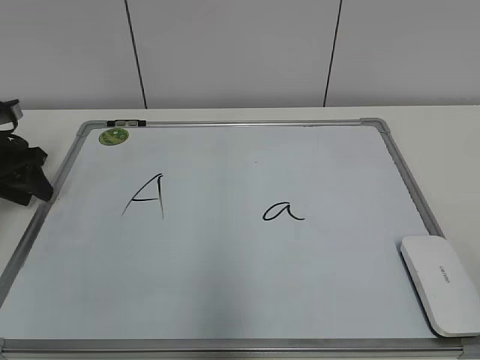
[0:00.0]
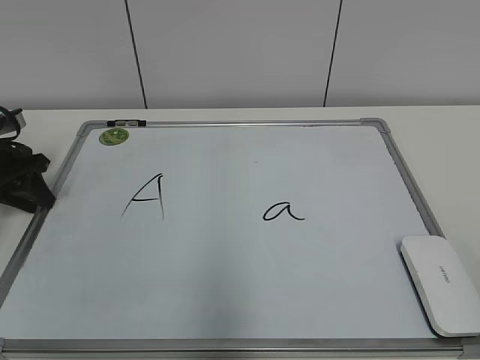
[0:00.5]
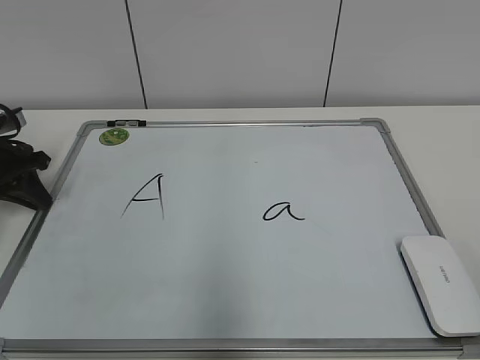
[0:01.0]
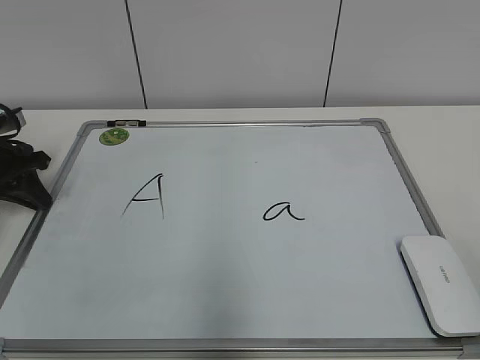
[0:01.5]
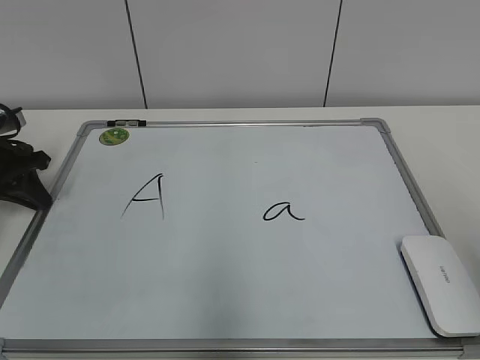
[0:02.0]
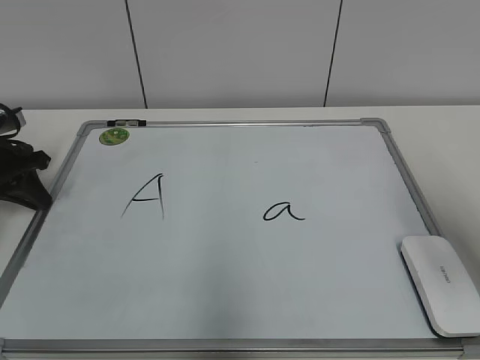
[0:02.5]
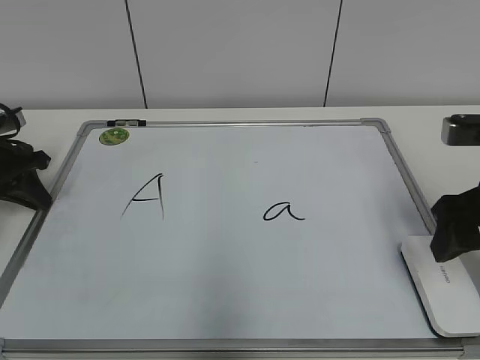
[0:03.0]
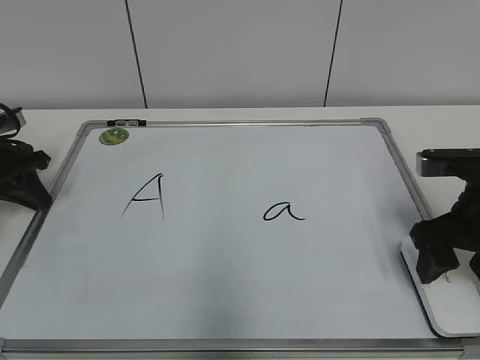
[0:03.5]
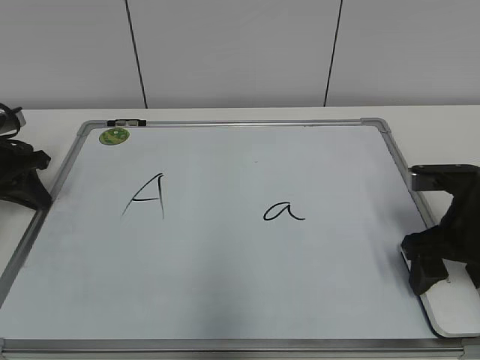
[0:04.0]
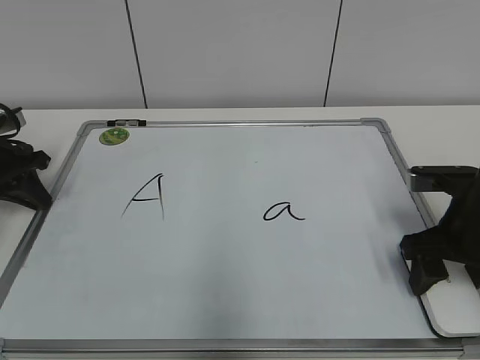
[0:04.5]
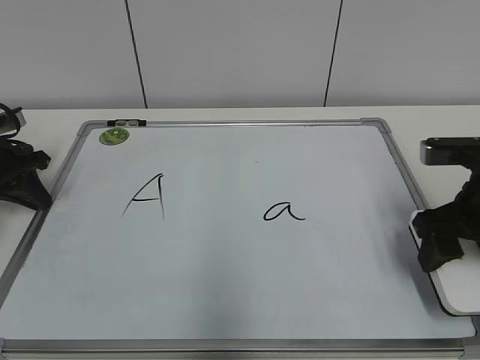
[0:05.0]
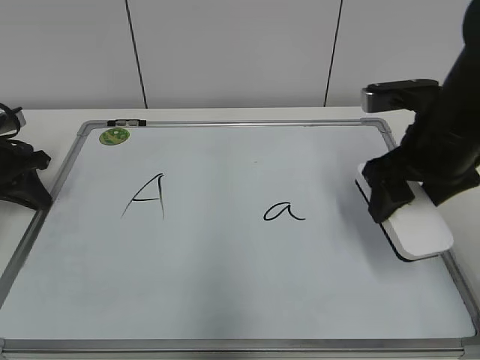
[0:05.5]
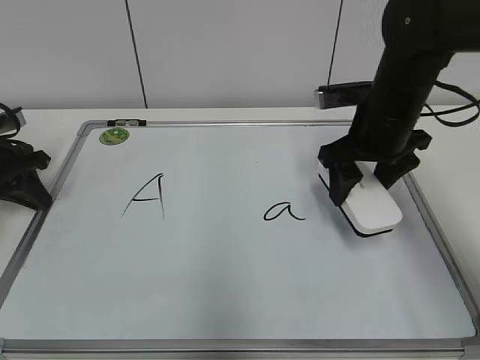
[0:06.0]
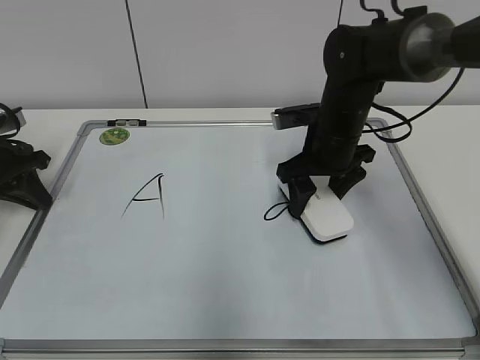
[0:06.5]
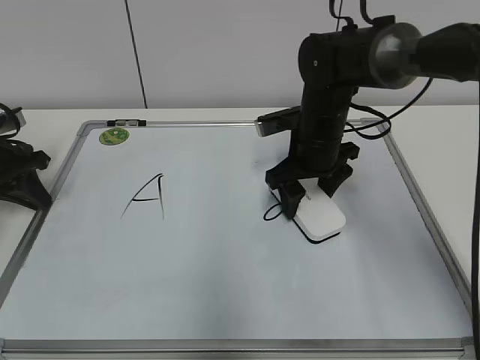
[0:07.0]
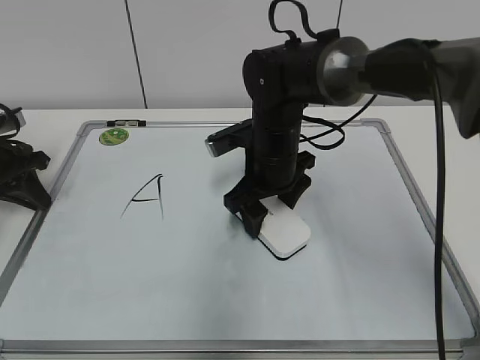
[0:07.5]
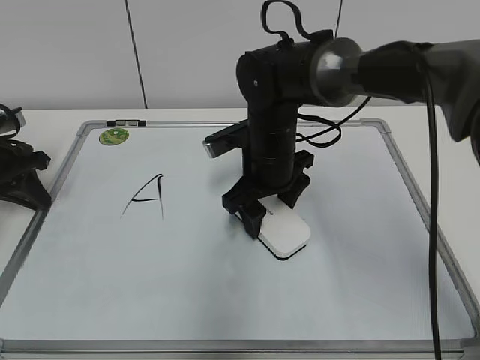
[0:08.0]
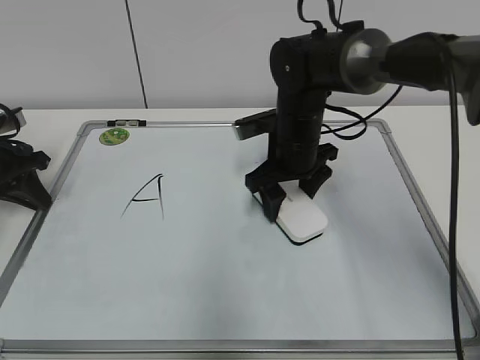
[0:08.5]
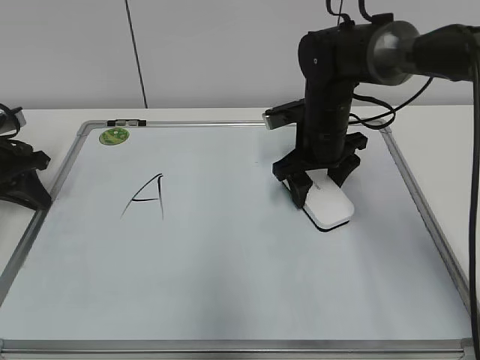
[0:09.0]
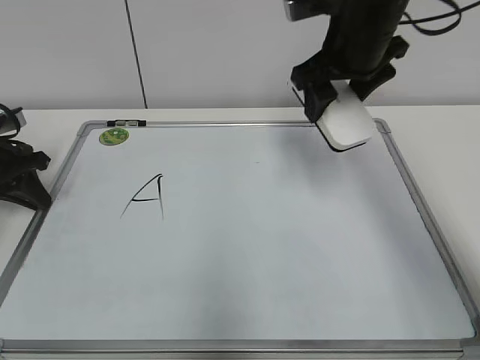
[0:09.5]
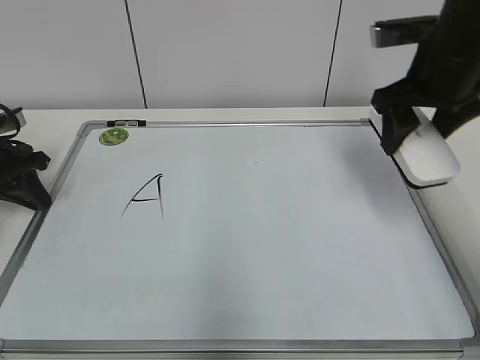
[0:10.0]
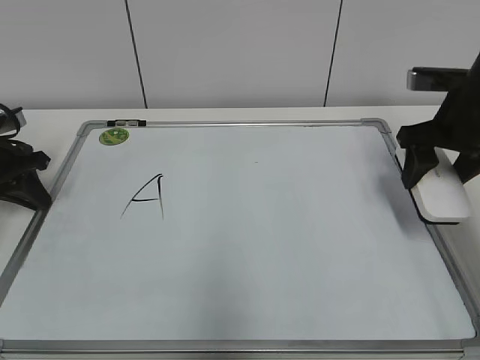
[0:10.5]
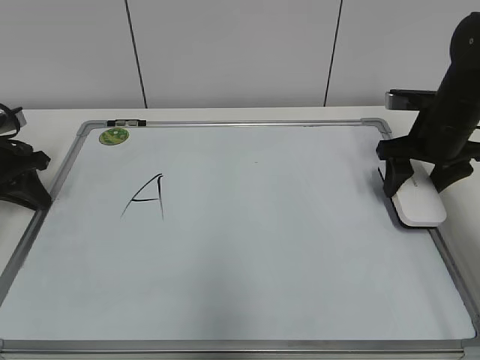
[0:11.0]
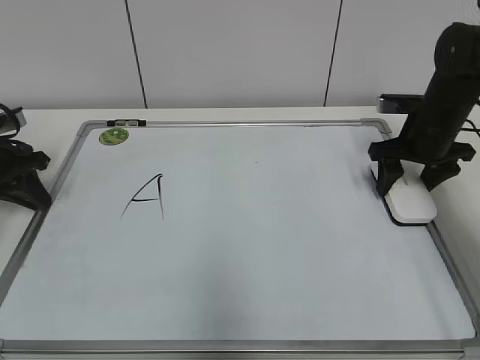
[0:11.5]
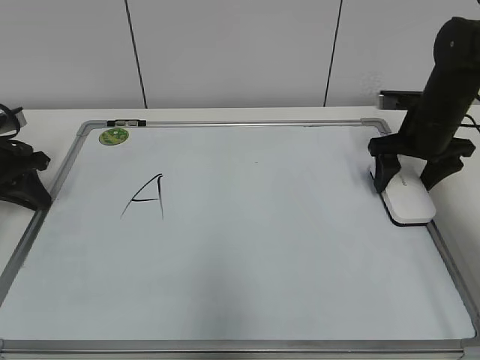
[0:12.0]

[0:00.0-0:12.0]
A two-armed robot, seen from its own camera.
Task of the whole recording: pick up the eraser on the blackboard and erase the letter "a".
Step, 0:01.5 to 0:04.0: Grab the eraser with your right hand.
Step, 0:04.5 to 0:08.5: Erase the letter a with your right hand.
Step, 0:09.0 to 0:11.5: Put down the eraser with your right hand.
0:00.0 to 0:02.0: The left gripper closes its fingers.
0:02.0 to 0:04.0: The right gripper goes roughly 25 cm forward and downward.
0:04.0 to 0:06.0: The right gripper heads forward, to the left and upward, covering roughly 15 cm.
0:06.0 to 0:08.0: The right gripper travels to the left and downward by some 15 cm.
0:08.0 to 0:10.0: The right gripper travels to the right and upward by about 20 cm.
0:10.0 to 0:12.0: The right gripper moves downward and forward, some 15 cm.

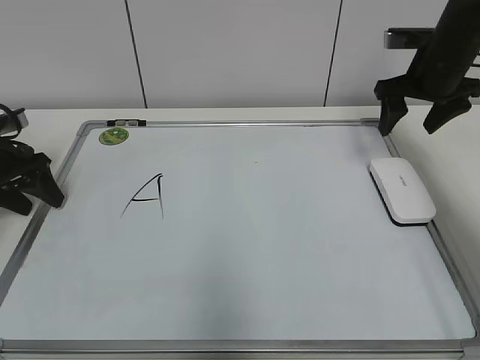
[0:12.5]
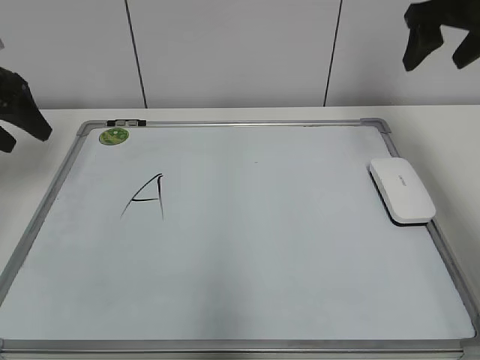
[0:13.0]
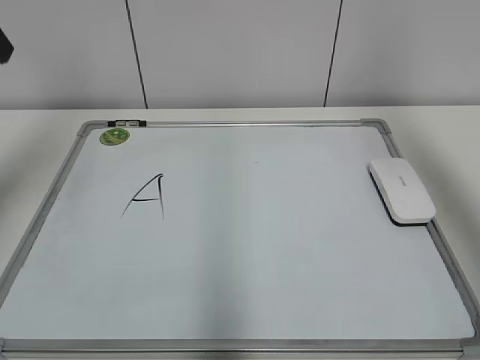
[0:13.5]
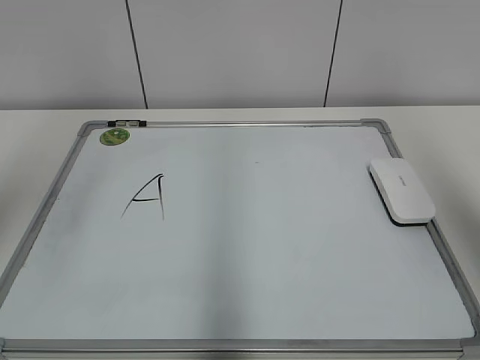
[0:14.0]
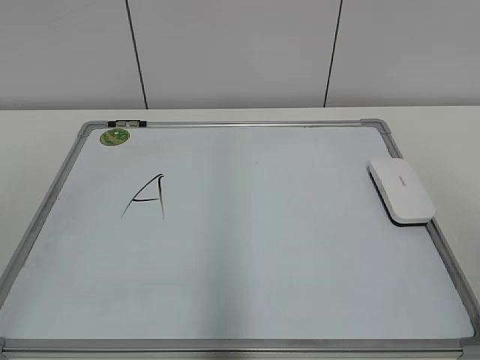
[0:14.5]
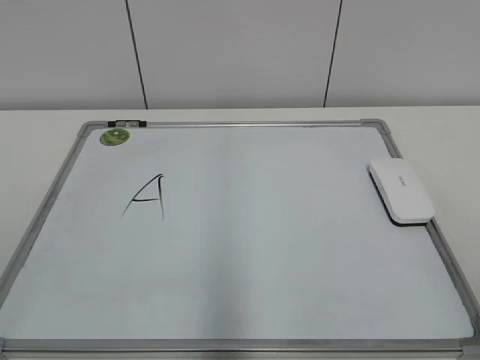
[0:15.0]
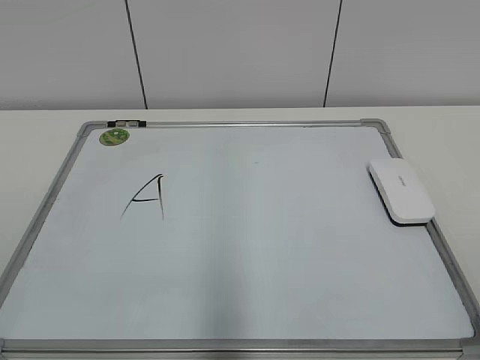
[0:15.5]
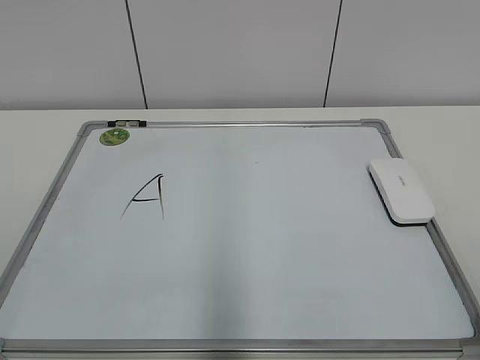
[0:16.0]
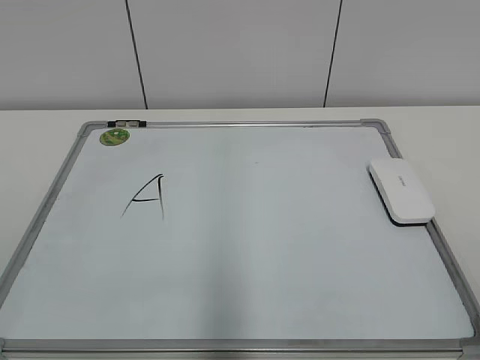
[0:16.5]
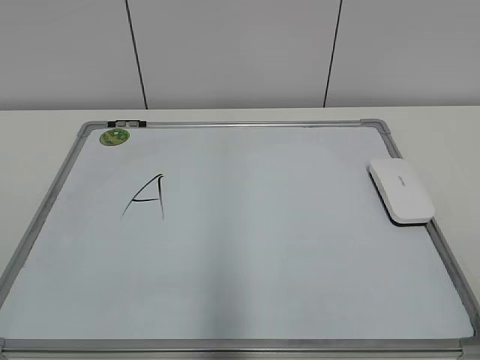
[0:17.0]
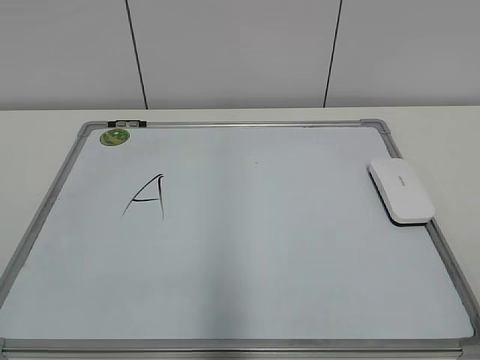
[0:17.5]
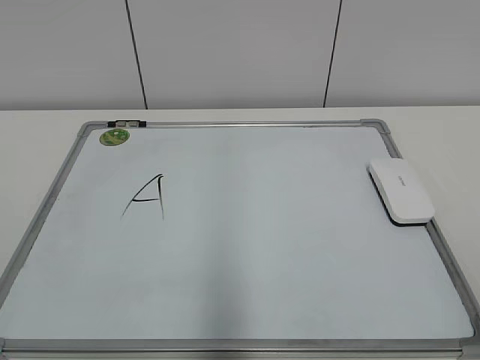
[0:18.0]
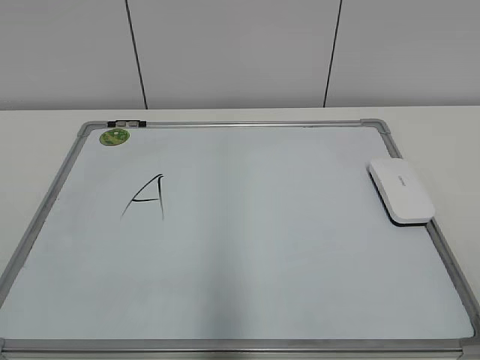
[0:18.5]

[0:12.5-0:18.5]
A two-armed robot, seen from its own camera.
Task of the whole recording: pick up the eraser on the blackboard and erase the letter "a".
0:12.5 to 0:14.5: The left gripper shifts roughly 40 cm backward and upward. The right gripper is displaced backward by roughly 40 cm.
